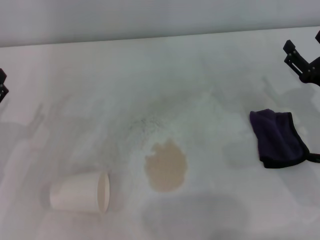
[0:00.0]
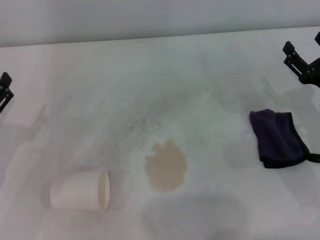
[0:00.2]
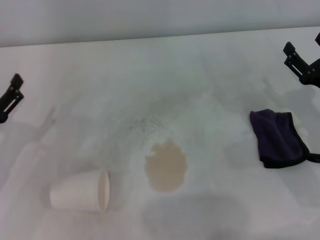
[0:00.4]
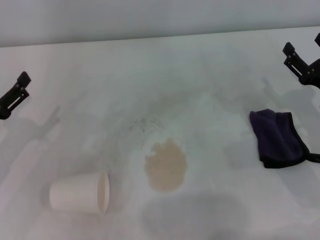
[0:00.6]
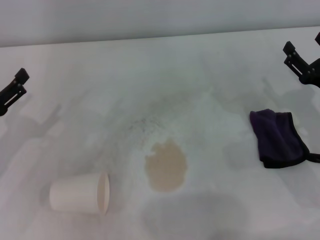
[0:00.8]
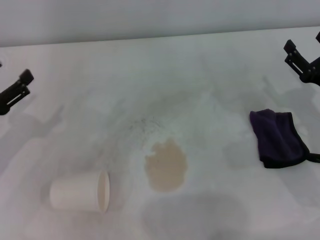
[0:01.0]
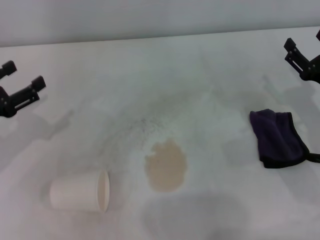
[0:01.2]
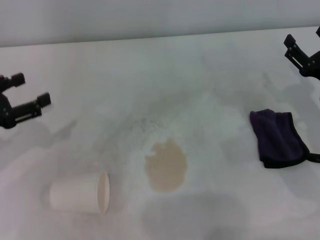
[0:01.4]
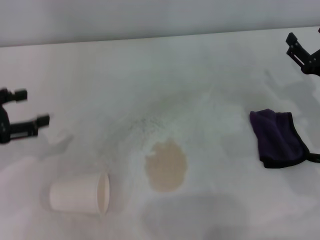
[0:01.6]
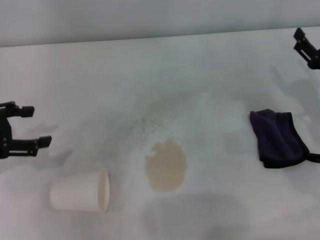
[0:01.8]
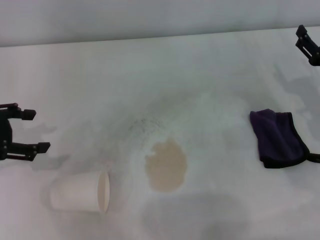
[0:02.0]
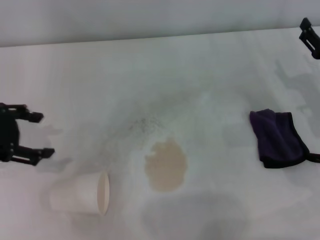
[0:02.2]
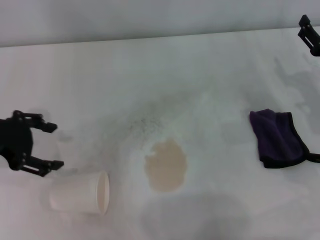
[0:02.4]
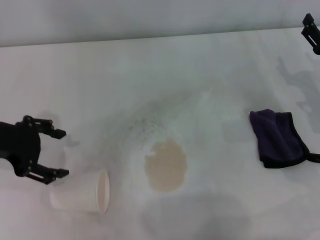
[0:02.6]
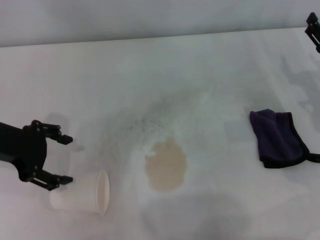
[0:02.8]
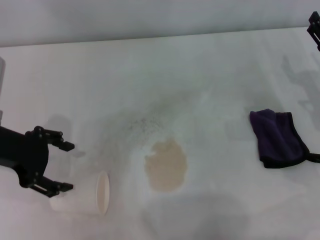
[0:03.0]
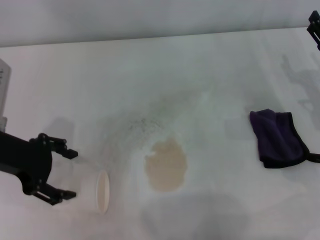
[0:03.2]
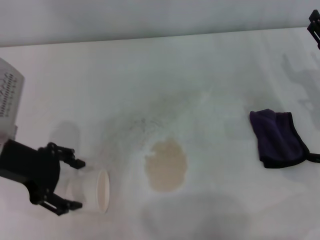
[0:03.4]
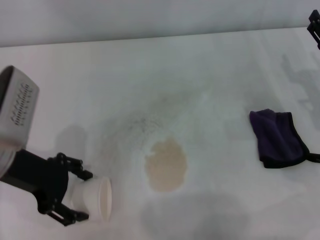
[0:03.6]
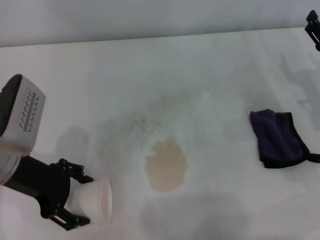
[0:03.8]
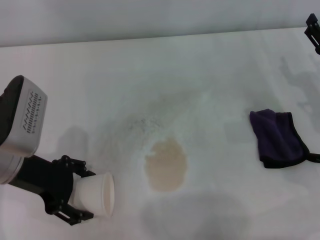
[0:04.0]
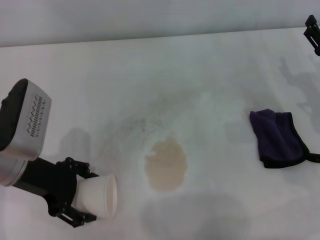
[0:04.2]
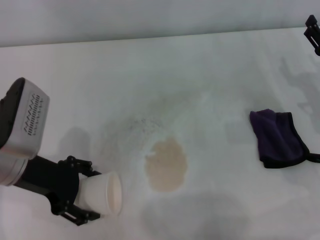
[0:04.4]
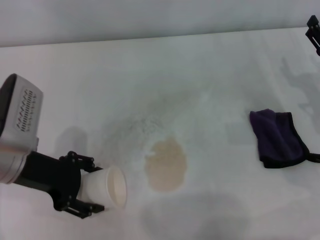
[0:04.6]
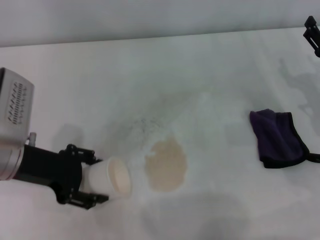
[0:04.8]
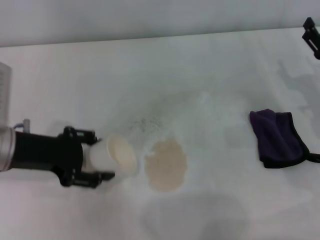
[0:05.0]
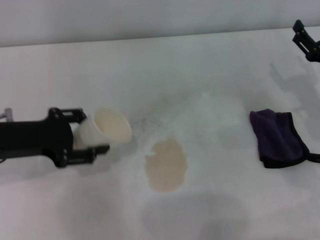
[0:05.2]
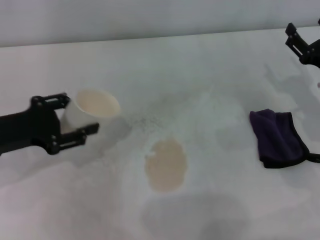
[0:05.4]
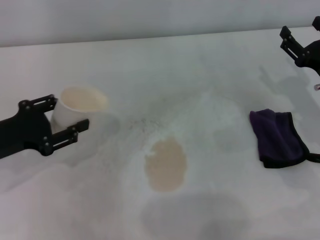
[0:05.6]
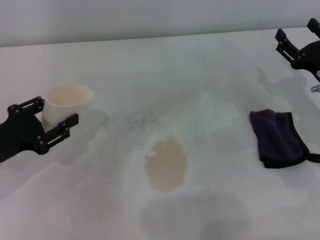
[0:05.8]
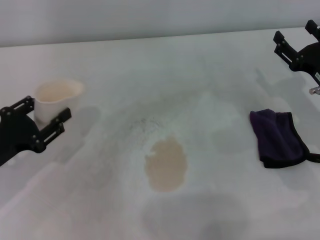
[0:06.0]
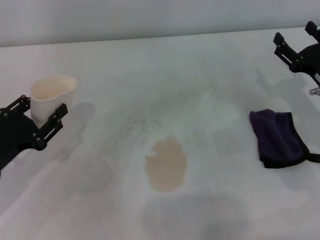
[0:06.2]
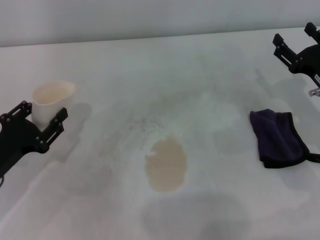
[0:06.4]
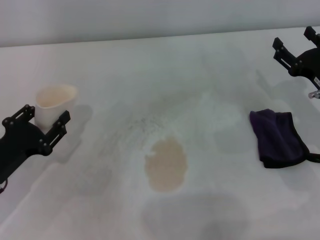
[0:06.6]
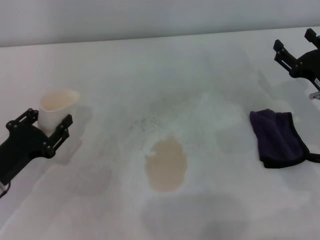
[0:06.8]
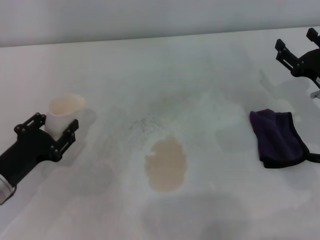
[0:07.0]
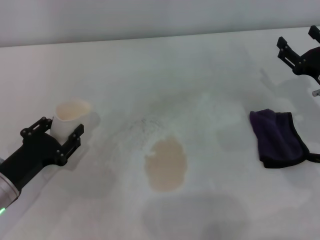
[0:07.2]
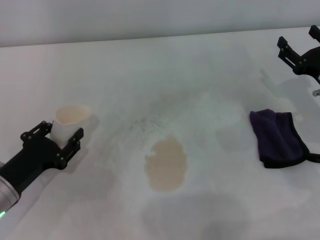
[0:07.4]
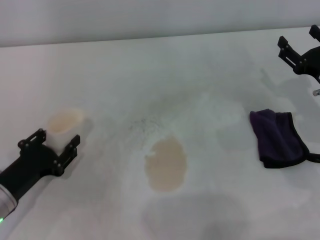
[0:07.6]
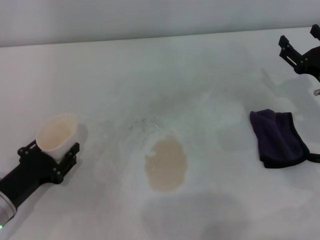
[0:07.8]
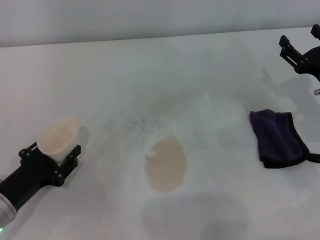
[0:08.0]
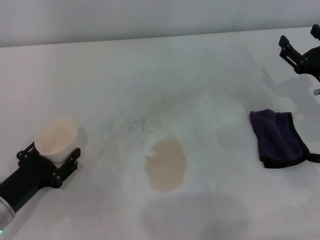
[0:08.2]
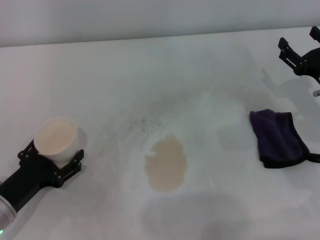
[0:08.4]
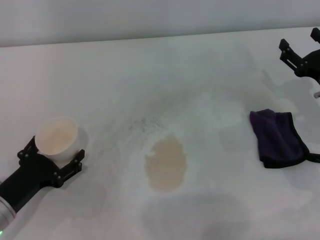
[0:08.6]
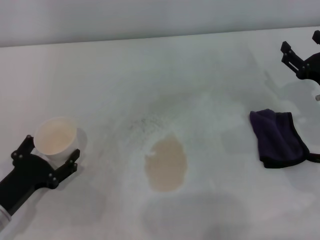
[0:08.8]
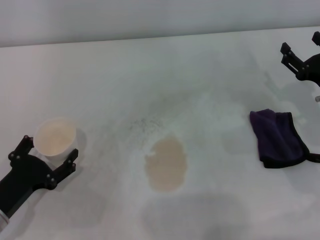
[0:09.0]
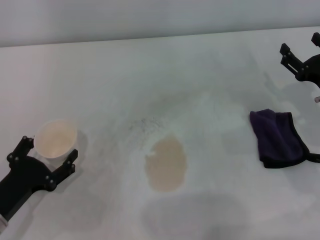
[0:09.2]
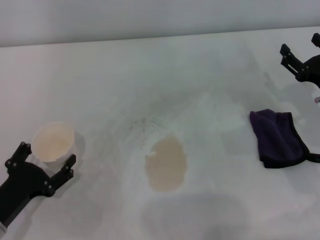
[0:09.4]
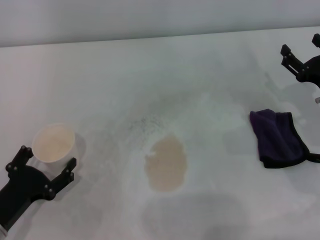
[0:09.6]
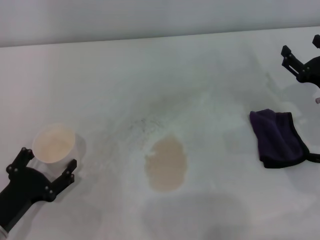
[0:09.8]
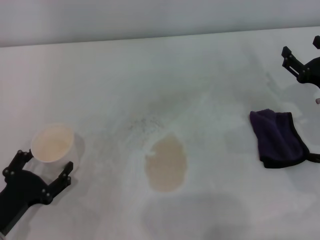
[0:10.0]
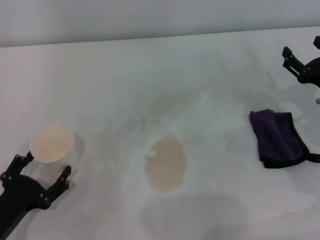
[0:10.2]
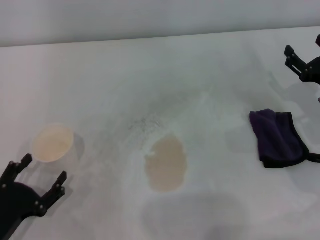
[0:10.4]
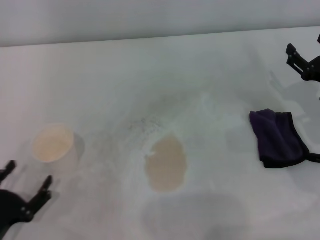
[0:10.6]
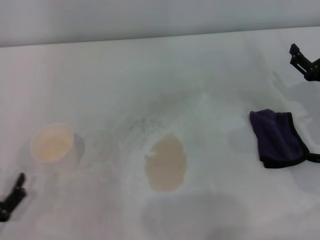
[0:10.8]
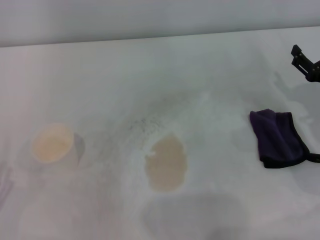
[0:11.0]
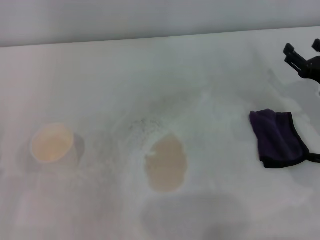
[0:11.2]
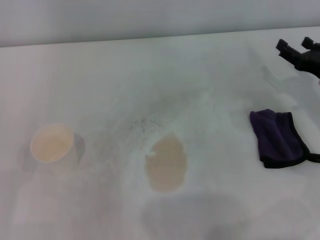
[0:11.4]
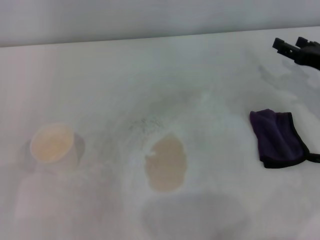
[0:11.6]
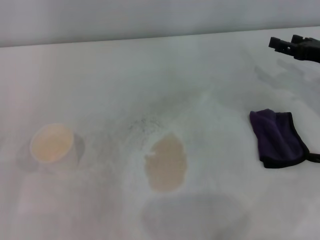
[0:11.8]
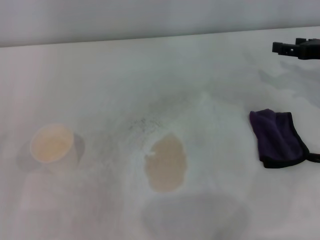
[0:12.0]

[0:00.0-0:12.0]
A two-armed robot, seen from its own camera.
Step, 0:00.0 to 0:04.2: Grasp the paper cup with the left gripper.
Step, 0:04.6 to 0:08.4: Stand the paper cup upright with the left gripper.
0:00.0 to 0:01.6: The left gripper travels upward by some 10 cm.
0:01.6 to 0:03.0: The left gripper heads to the right, covering about 10 cm.
0:03.0 to 0:04.4: The left gripper changes place by roughly 5 cm.
0:04.4 to 0:06.0: The left gripper moves to the left and downward, about 10 cm, and closes.
0:06.0 to 0:07.6: The left gripper goes roughly 5 cm downward.
0:07.6 to 0:09.0: The left gripper opens.
0:09.0 to 0:10.4: The left gripper moves approximately 5 cm.
0:10.4 to 0:12.0: The right gripper goes roughly 10 cm upward and forward, while the left gripper shifts some 5 cm to the left.

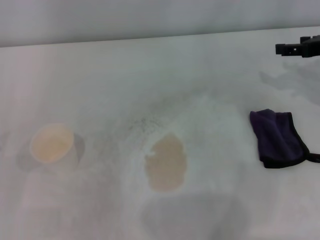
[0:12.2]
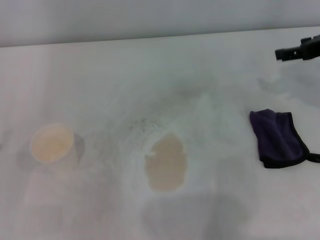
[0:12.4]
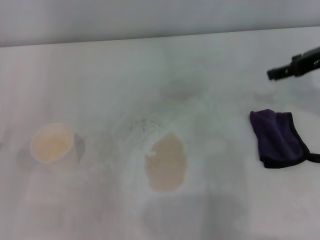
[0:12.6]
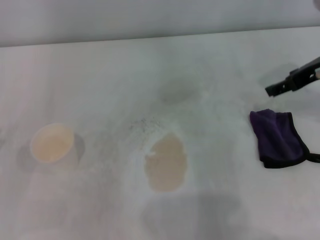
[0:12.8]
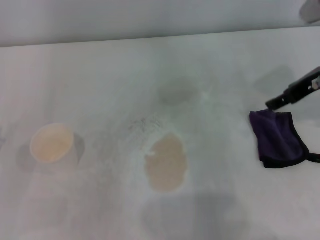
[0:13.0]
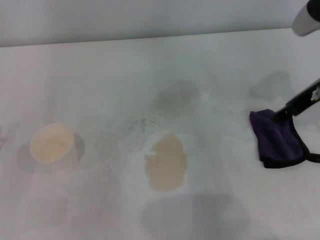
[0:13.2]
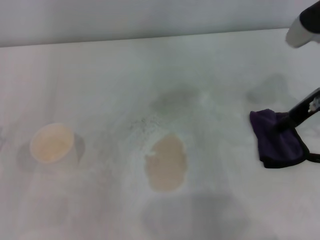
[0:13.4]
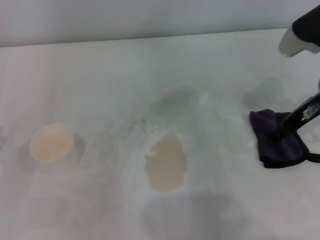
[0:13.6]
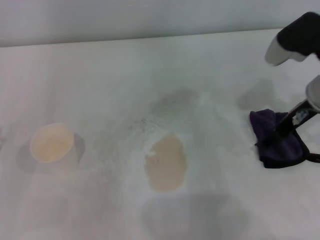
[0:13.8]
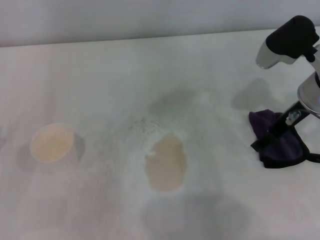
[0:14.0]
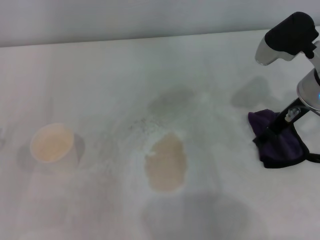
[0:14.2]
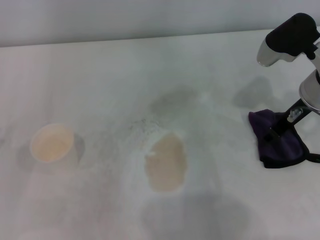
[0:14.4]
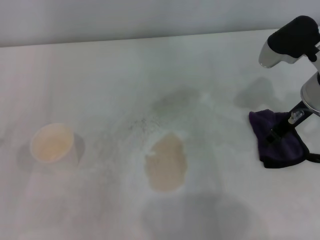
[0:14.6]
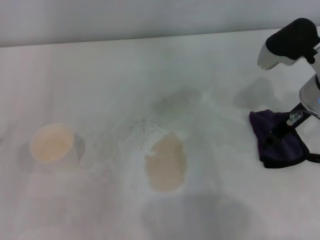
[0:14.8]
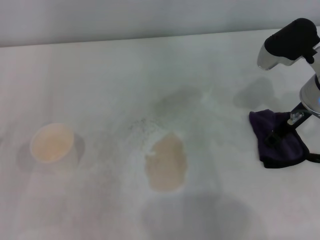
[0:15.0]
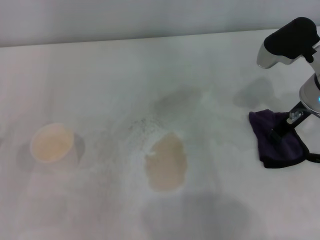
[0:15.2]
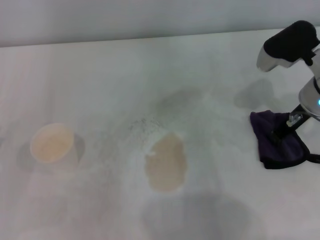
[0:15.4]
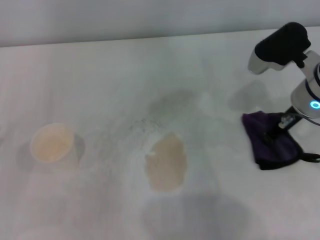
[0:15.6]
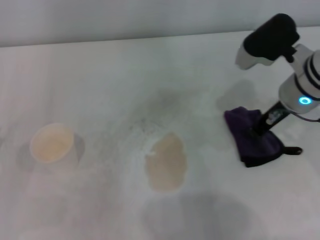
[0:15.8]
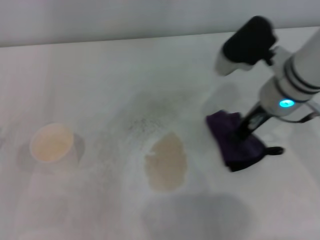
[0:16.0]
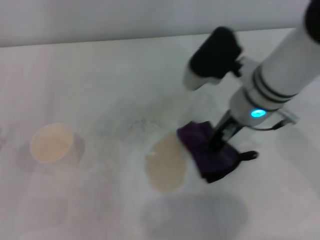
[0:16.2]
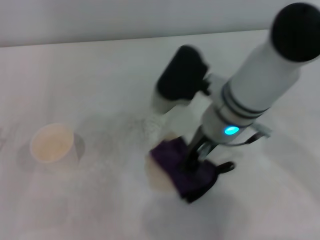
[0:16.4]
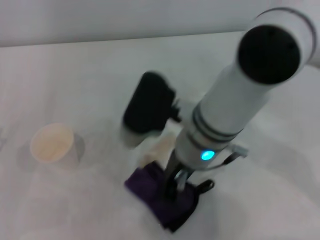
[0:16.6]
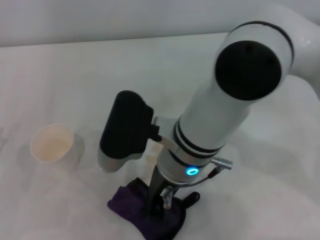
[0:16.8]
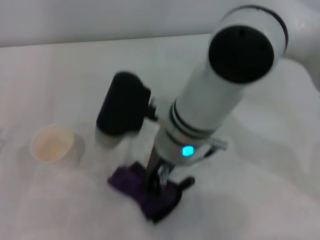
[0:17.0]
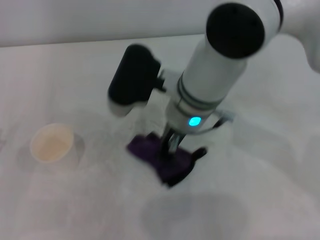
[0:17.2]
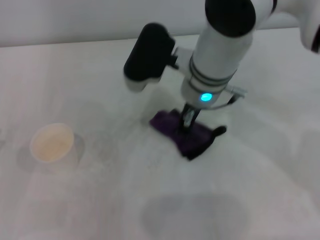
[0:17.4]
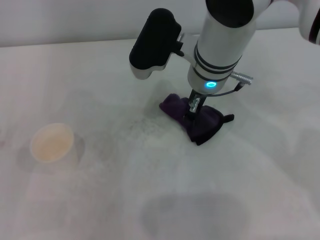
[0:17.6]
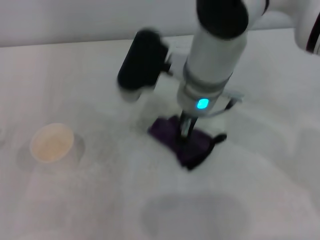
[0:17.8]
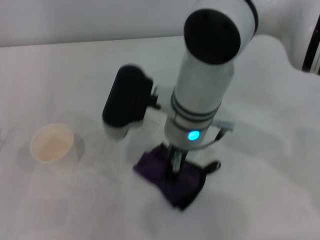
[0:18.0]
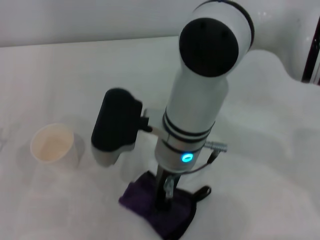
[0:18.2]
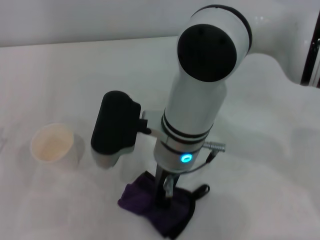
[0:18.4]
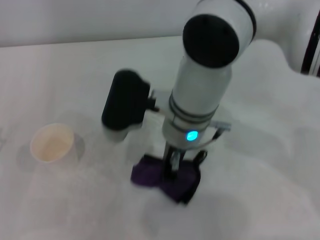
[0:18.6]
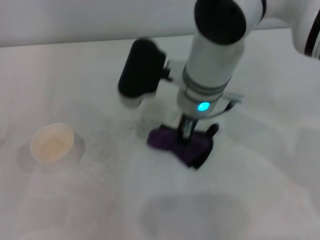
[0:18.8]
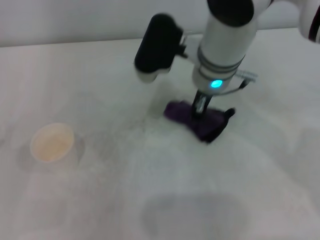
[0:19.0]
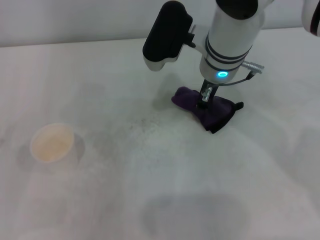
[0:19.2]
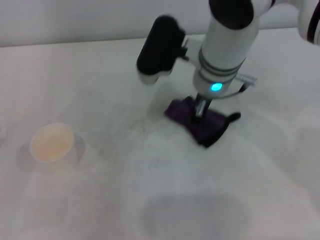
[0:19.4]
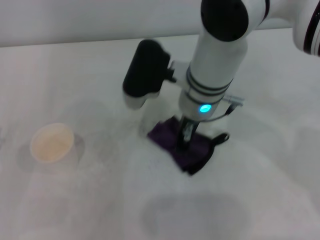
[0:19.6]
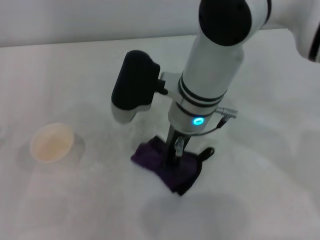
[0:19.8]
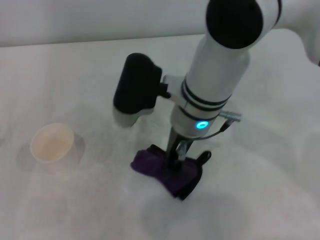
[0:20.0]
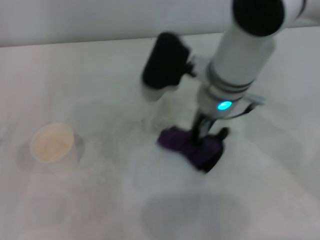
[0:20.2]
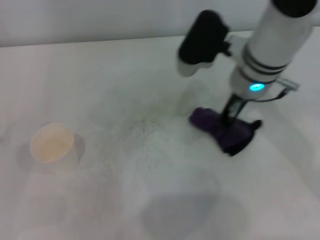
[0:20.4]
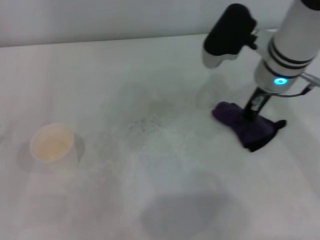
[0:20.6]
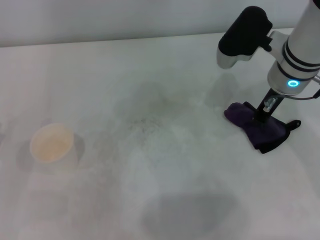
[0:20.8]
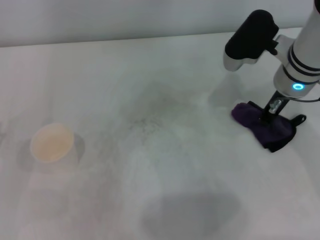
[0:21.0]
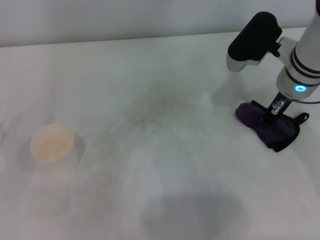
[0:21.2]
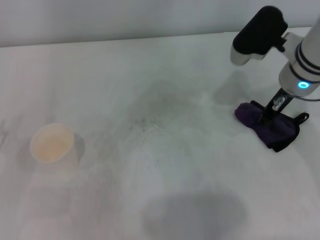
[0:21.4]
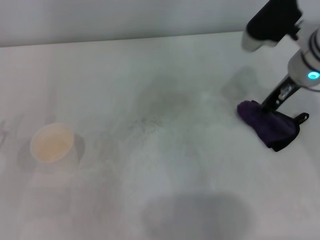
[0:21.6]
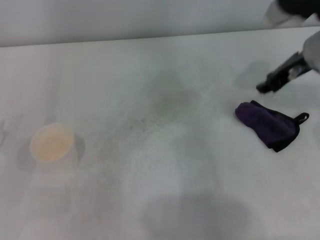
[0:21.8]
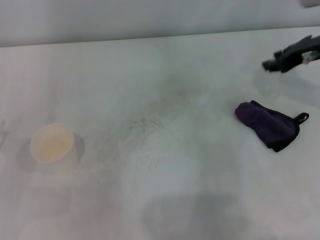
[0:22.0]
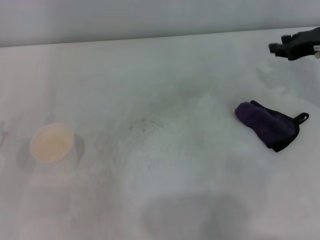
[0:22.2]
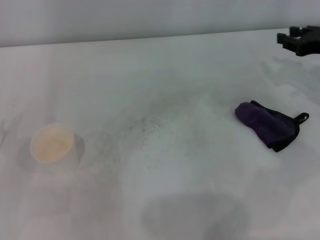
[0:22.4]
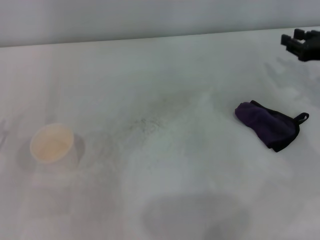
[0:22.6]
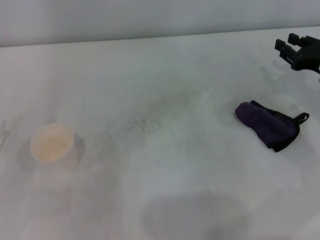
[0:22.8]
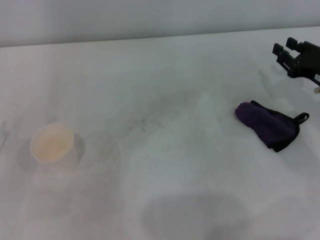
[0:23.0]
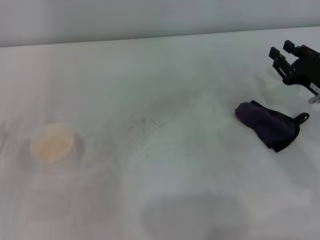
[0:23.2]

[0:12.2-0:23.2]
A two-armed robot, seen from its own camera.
Step, 0:12.2 to 0:15.8: Grasp the rag with the right gripper.
Step, 0:16.0 to 0:20.4: Wipe the stains off the table with the right gripper.
Step, 0:20.6 to 0:21.2: Place the rag on the table with the right gripper.
0:12.2 to 0:13.8: The right gripper shifts some 10 cm to the left.
0:13.8 to 0:15.4: The right gripper closes its fingers.
0:15.4 to 0:17.0: The right gripper heads to the left, covering roughly 20 cm.
0:17.0 to 0:18.4: The right gripper moves some 10 cm forward and comes back.
0:18.4 to 0:20.0: The right gripper goes forward and returns, approximately 10 cm each way.
0:20.0 to 0:21.6: The right gripper heads to the right, covering roughly 20 cm, and opens its fingers.
0:21.6 to 0:23.2: The right gripper moves downward, to the right and backward, some 15 cm.
